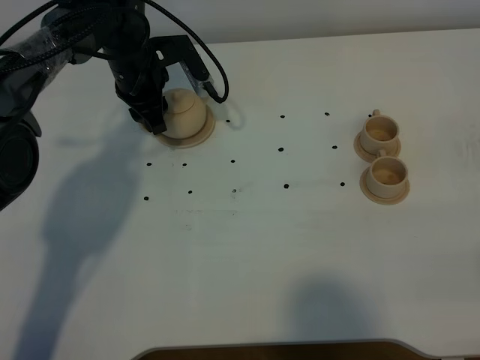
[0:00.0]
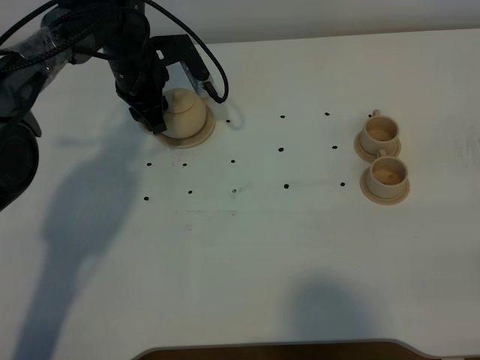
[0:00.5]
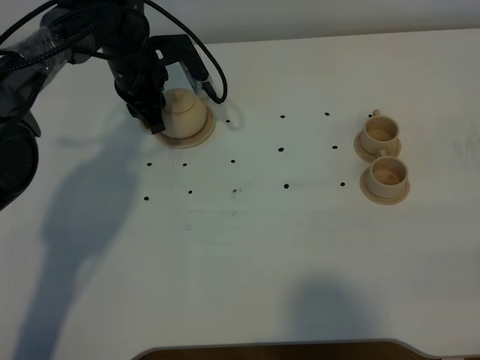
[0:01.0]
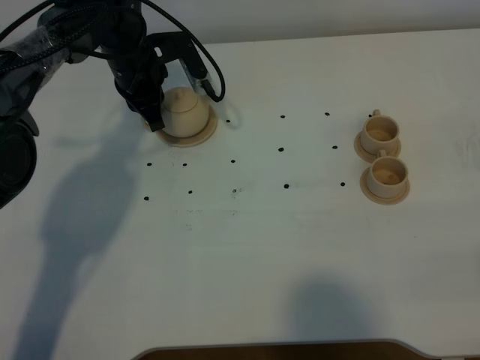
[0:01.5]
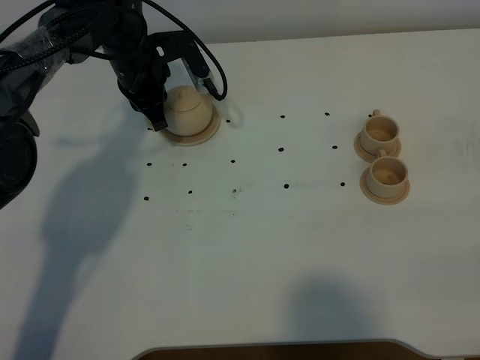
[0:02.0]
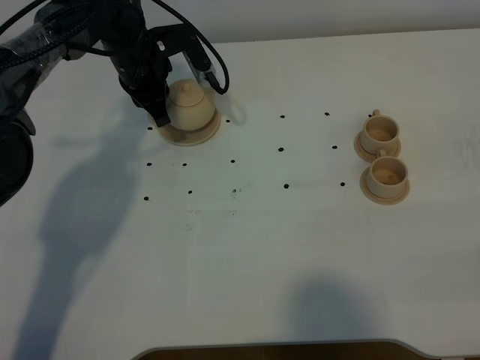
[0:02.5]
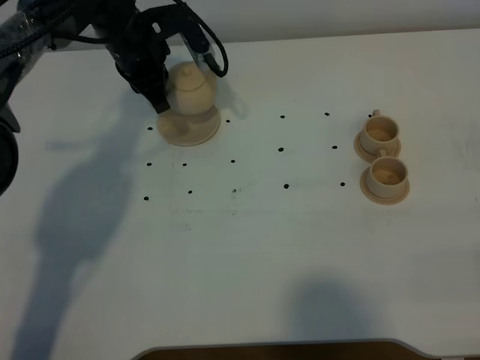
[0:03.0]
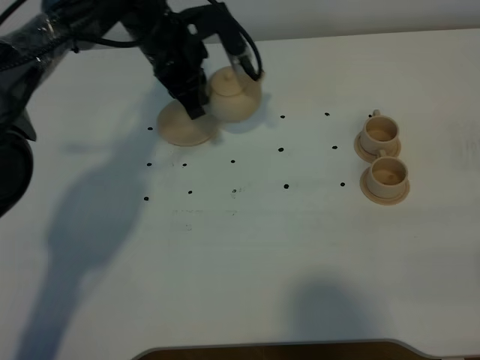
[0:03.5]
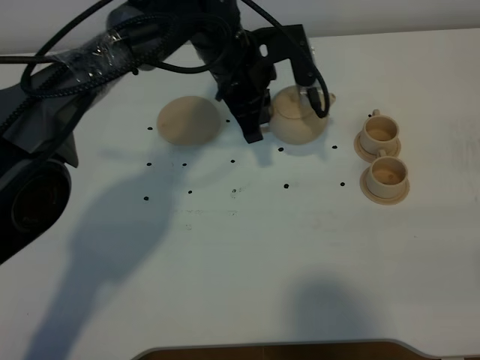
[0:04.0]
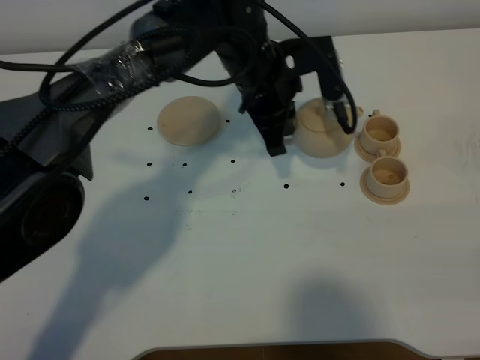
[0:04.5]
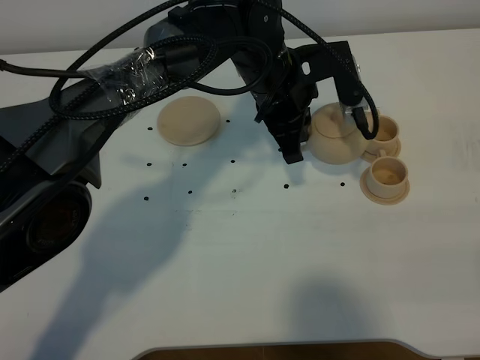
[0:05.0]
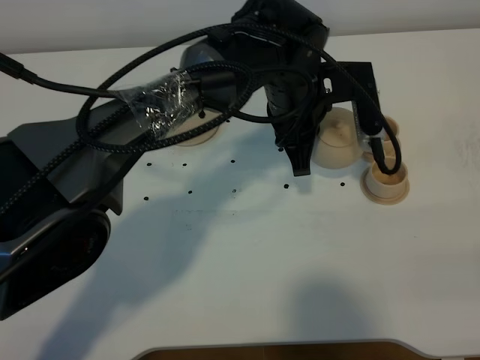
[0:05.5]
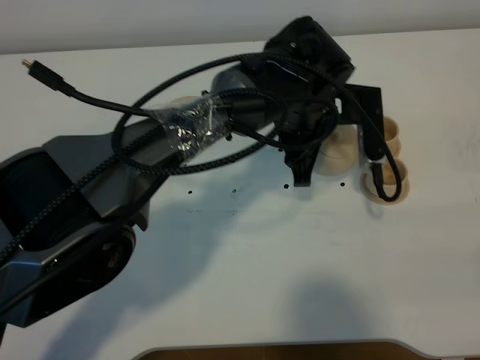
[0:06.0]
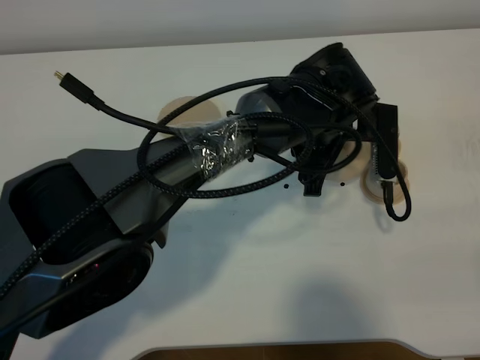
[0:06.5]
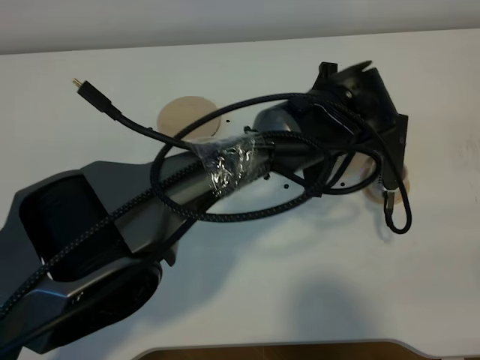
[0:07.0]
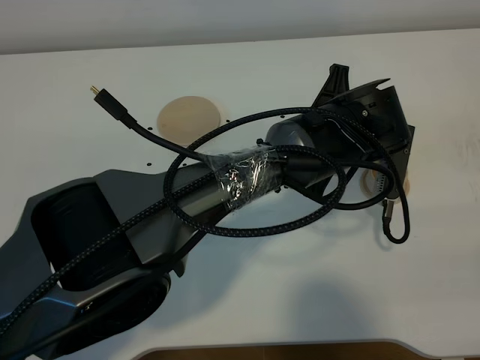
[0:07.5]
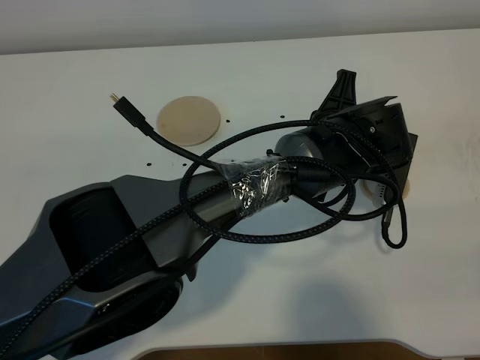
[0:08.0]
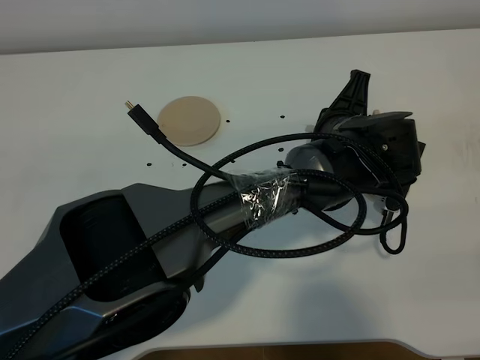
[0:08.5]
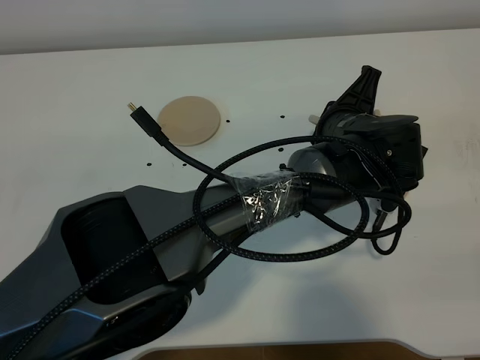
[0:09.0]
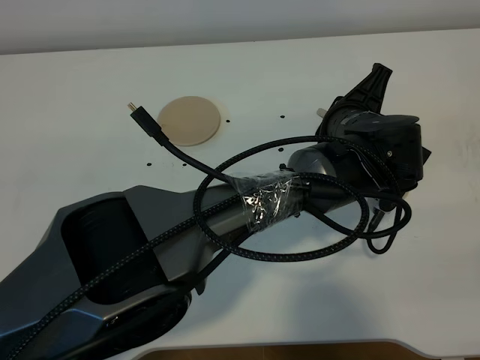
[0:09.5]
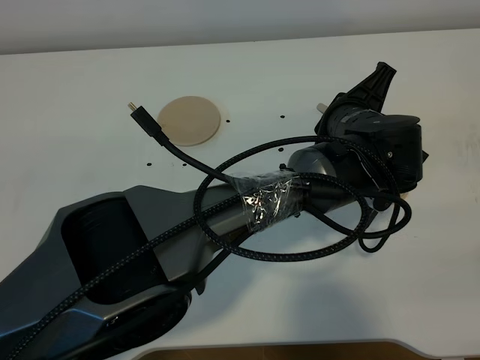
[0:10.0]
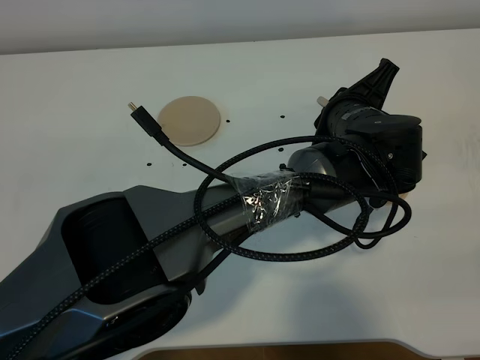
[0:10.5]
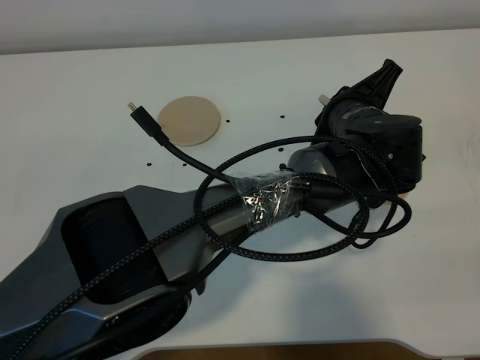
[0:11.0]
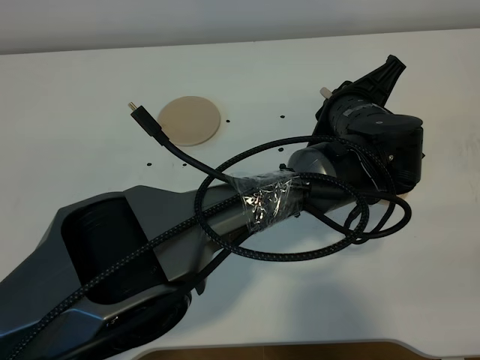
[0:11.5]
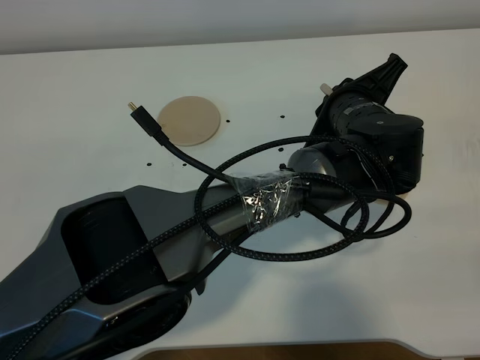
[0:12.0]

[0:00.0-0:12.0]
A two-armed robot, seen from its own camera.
Task of the whole recording: grasp the brown teapot and pour the tea into the two brown teacups one by one, put the brown teapot back in its original place.
Step, 0:00.0 to 0:02.5: Pick up the teapot with the left gripper.
0:00.0 to 0:02.0: The left gripper closes.
0:02.0 to 0:04.0: The left gripper heads to the right and backward, covering about 15 cm.
0:04.0 to 0:06.0: The left gripper moves to the right and backward, roughly 10 cm.
0:06.0 to 0:08.0: The left gripper moves approximately 5 cm.
0:10.0 to 0:12.0: There are only small adjustments of the grippers.

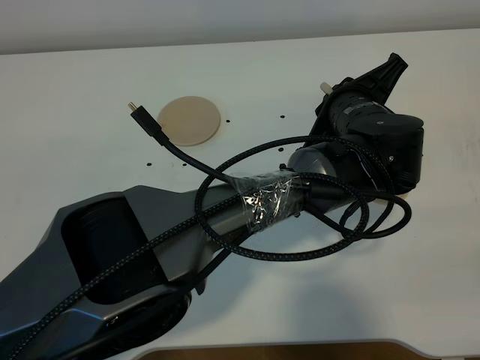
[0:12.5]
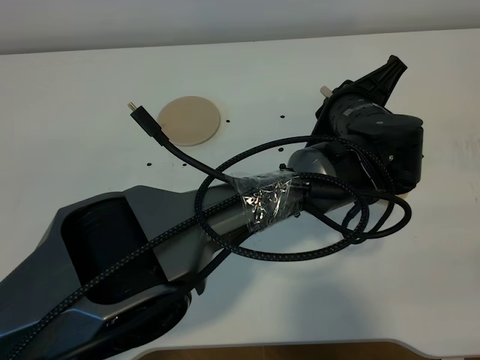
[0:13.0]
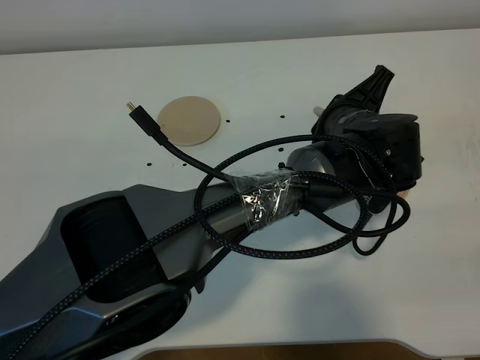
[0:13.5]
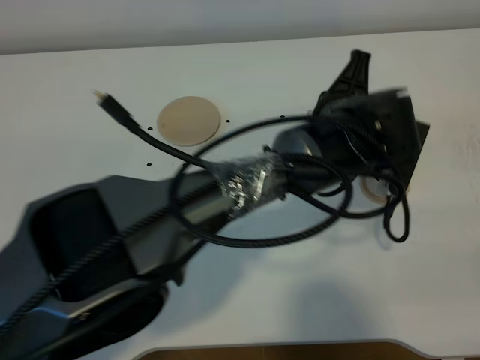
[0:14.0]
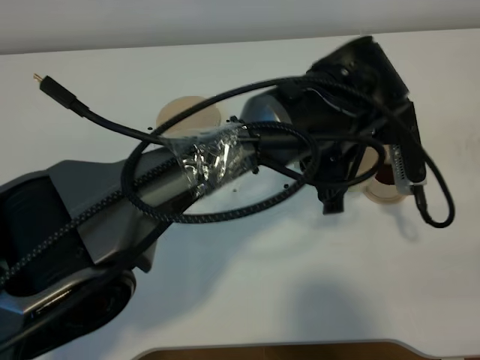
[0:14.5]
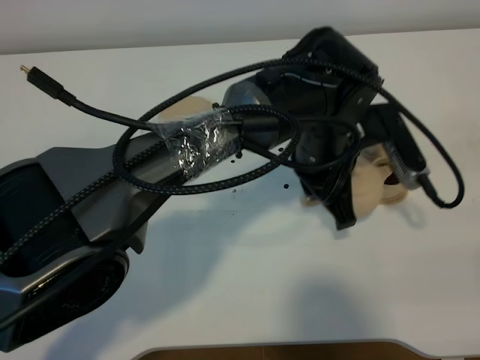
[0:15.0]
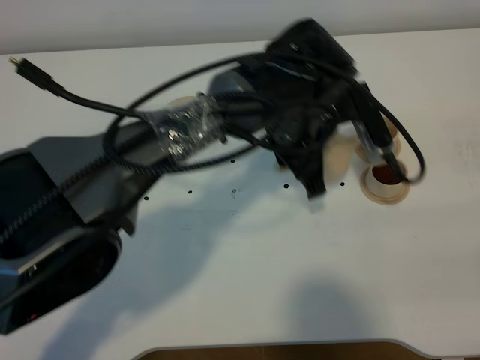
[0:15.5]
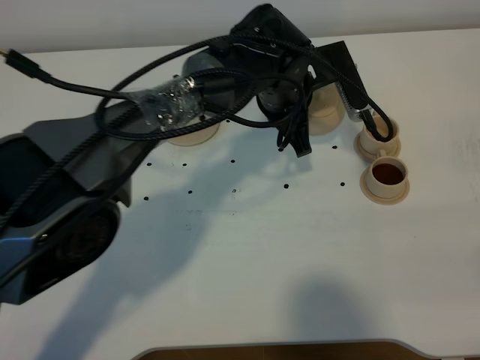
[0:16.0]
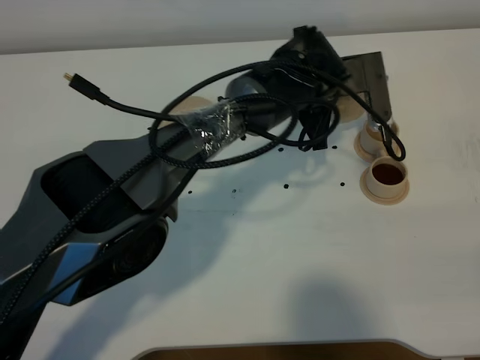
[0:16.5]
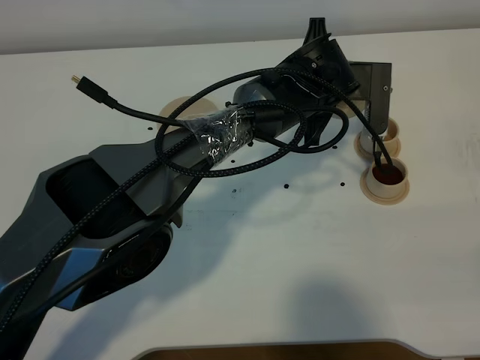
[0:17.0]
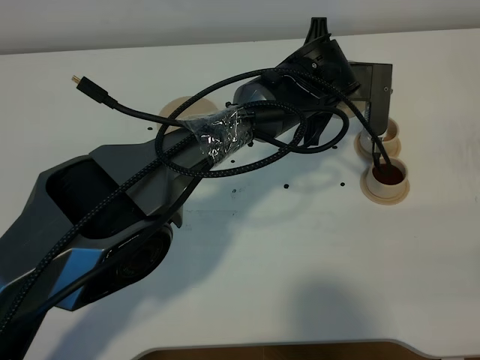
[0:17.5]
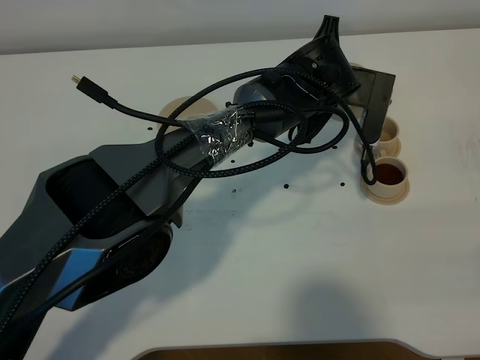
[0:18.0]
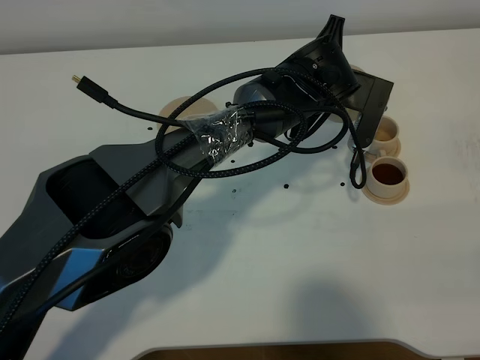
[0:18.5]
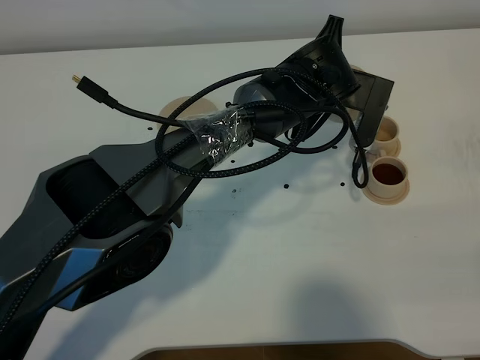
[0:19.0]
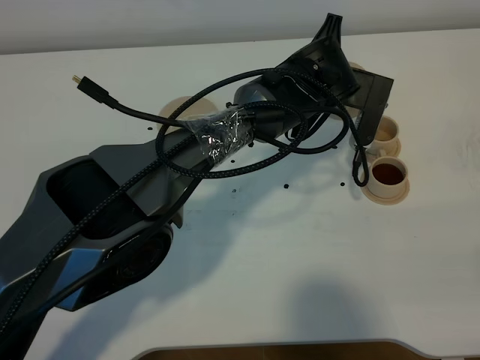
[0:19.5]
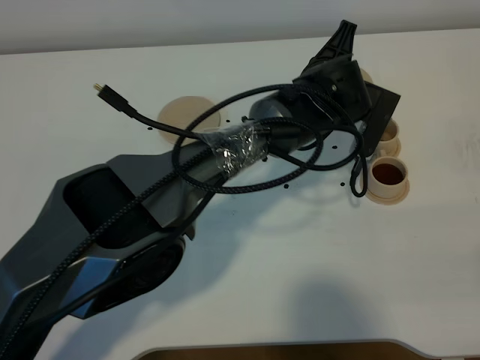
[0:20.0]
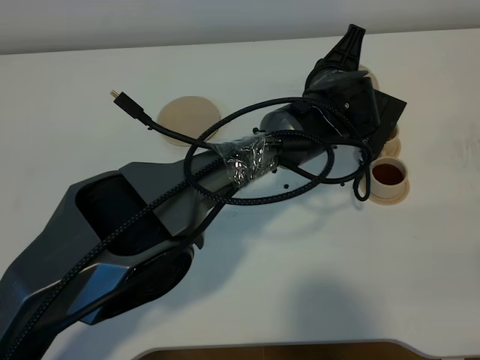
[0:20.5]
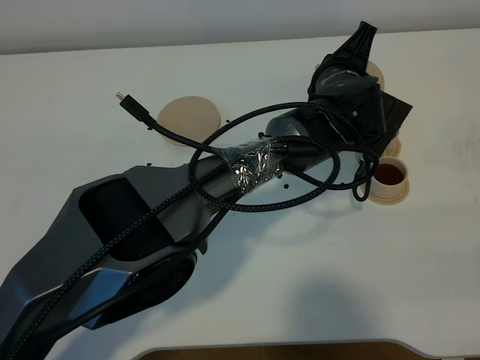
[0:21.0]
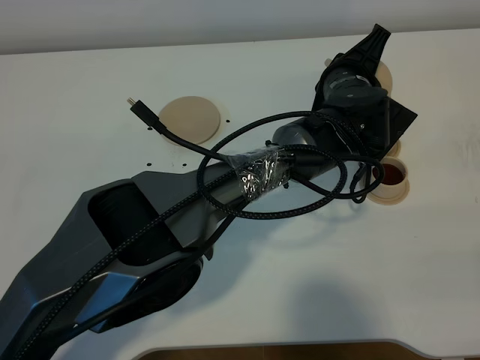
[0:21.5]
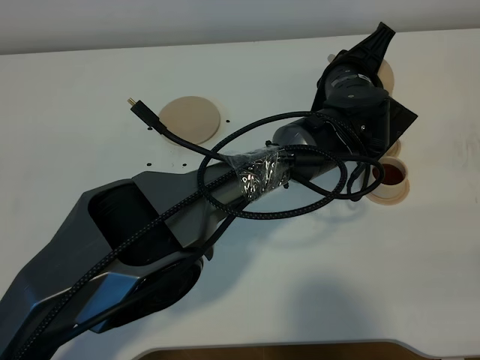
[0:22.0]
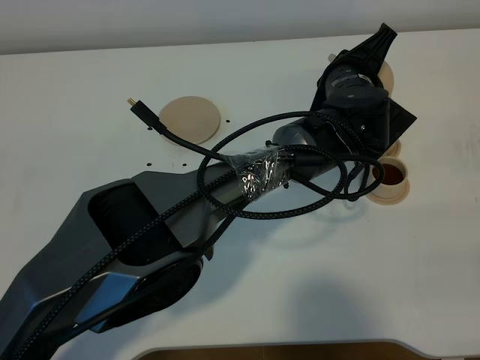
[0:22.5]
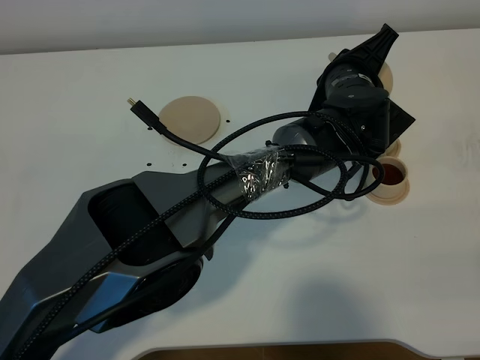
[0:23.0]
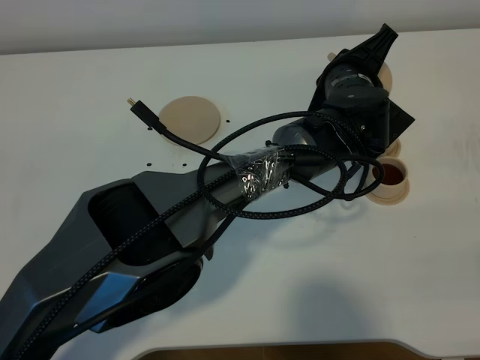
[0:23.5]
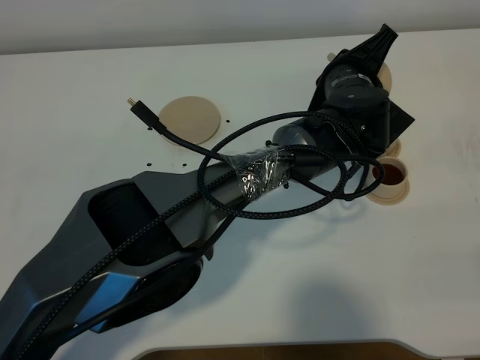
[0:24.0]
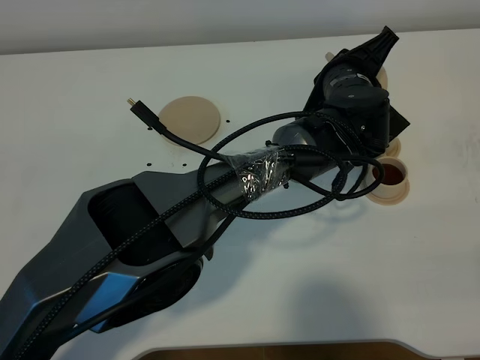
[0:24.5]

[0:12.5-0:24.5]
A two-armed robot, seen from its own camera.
Task of the whole recording: grasp the brown teapot and pour the tea into the two brown teacups one by one, put the brown teapot back in its original place.
0:12.5 to 0:14.5: The left gripper shifts by some 5 cm.
0:14.5 to 0:16.5: The left gripper travels forward by approximately 10 cm.
0:20.5 to 0:22.5: The grippers stay close to where they were, moving slightly.
0:22.5 to 0:24.5: There are only small adjustments of the grippers.

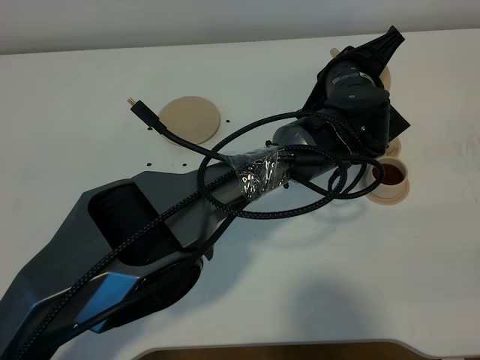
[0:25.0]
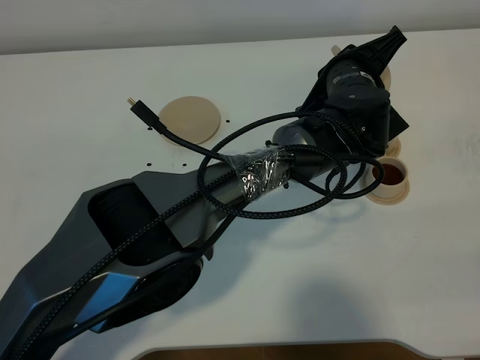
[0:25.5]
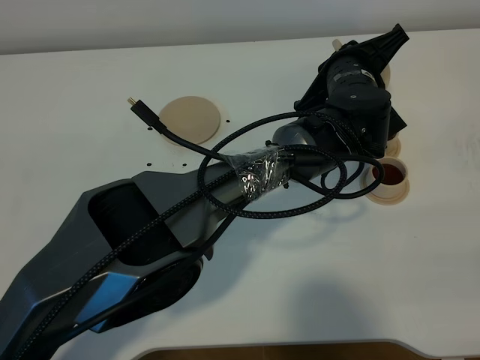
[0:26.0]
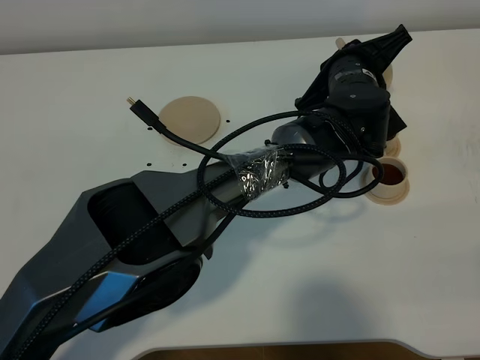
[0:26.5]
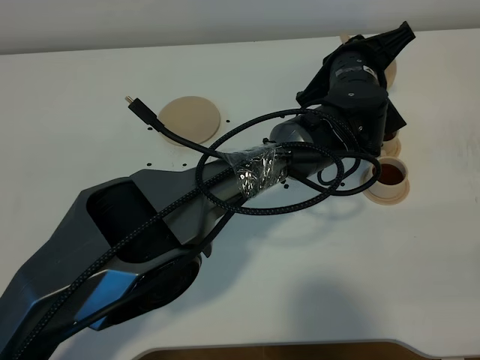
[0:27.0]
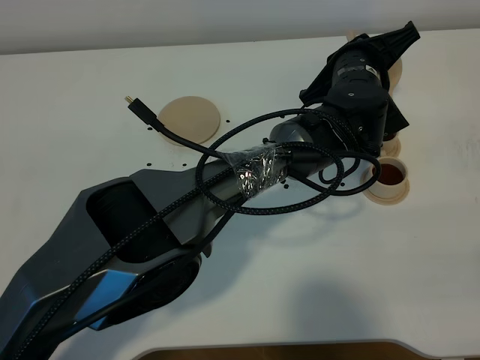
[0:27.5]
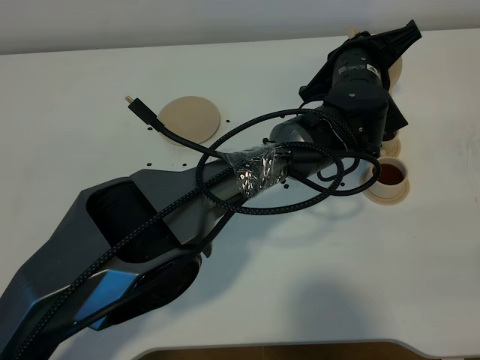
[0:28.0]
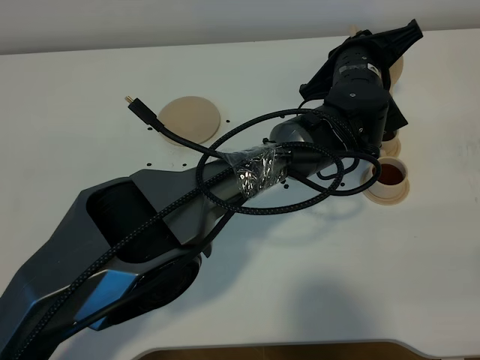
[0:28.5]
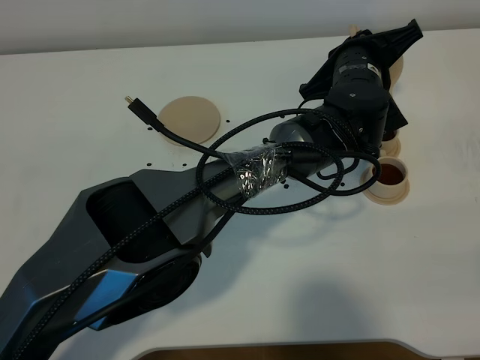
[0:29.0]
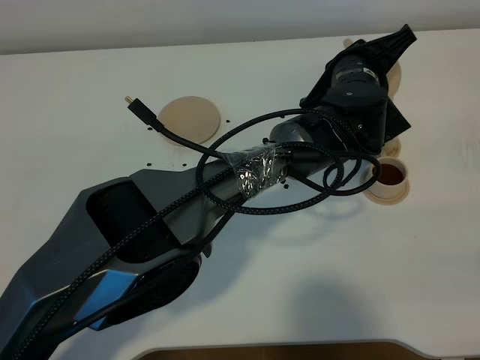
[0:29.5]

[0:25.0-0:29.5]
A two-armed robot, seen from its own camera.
Task of the whole recording: grasp the brown teapot and pour the tea into the two brown teacups one by one, put the brown teapot back in its original place.
0:25.0 to 0:29.5: The grippers move only a little.
